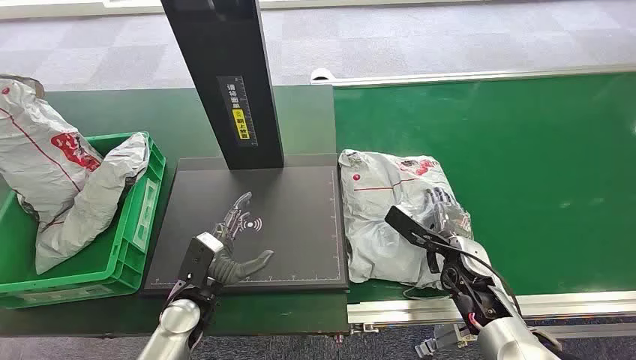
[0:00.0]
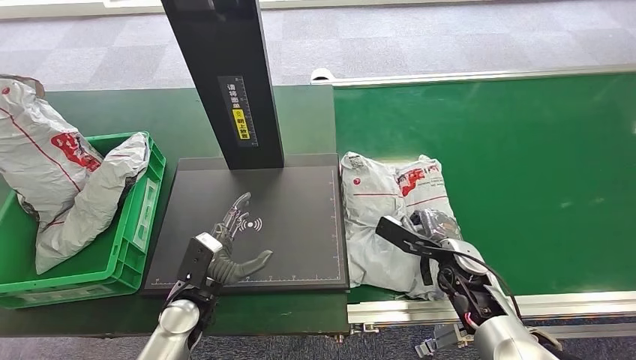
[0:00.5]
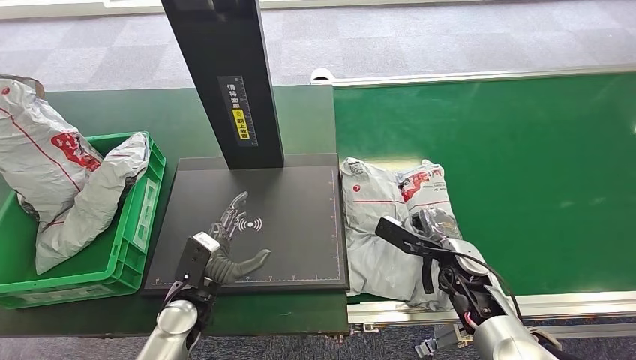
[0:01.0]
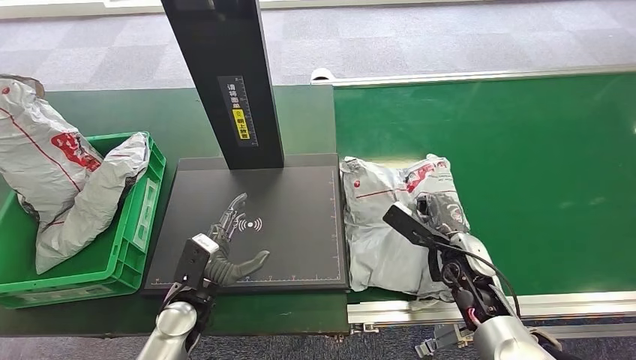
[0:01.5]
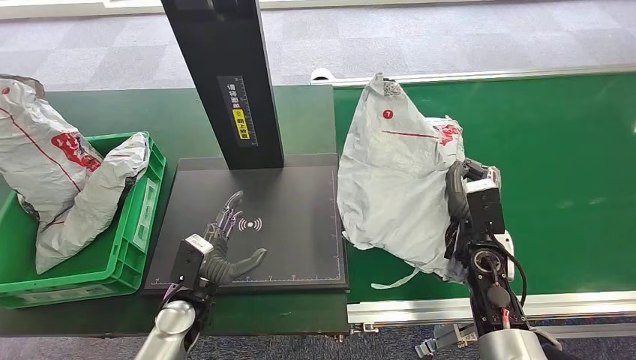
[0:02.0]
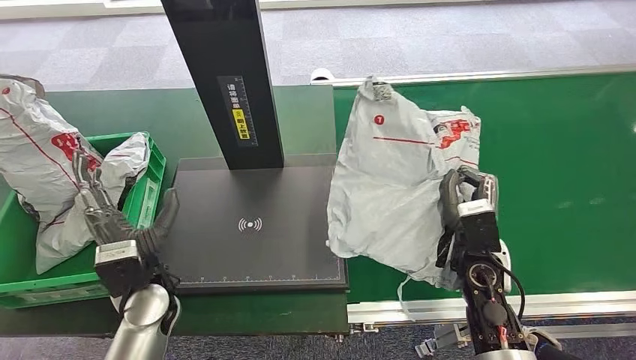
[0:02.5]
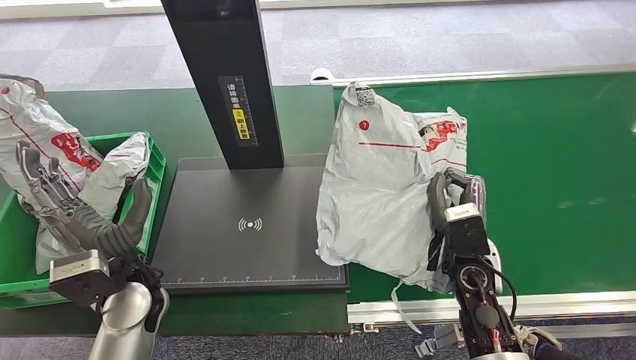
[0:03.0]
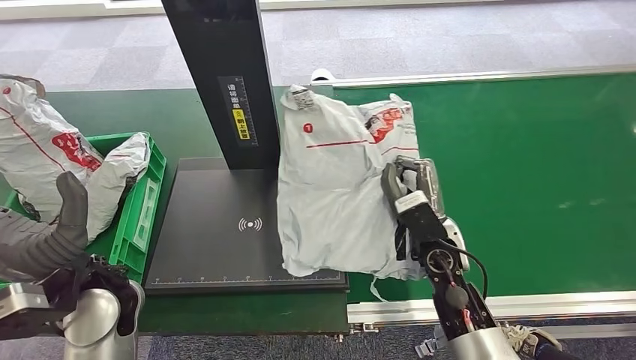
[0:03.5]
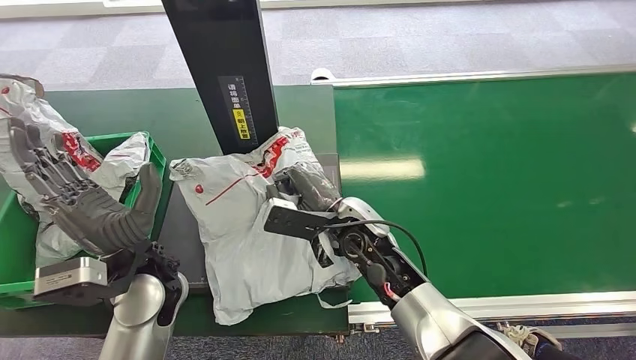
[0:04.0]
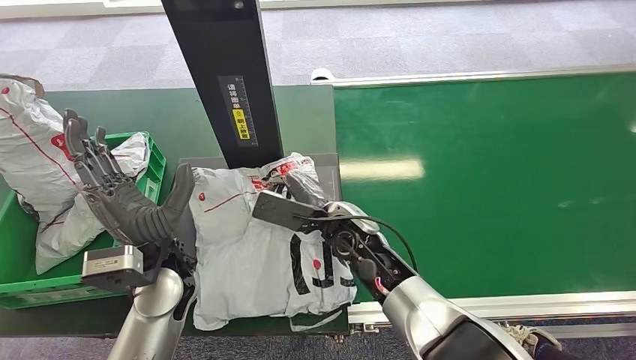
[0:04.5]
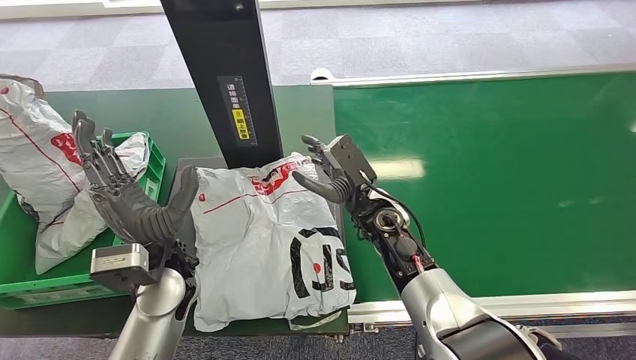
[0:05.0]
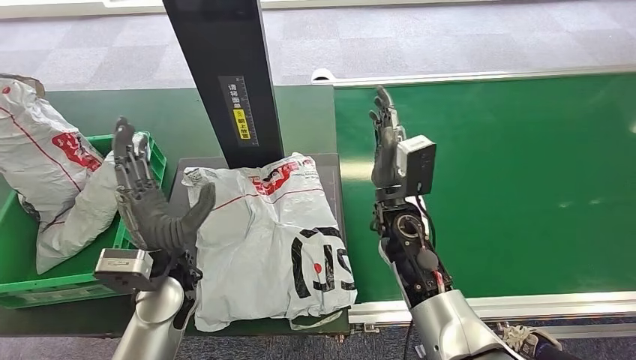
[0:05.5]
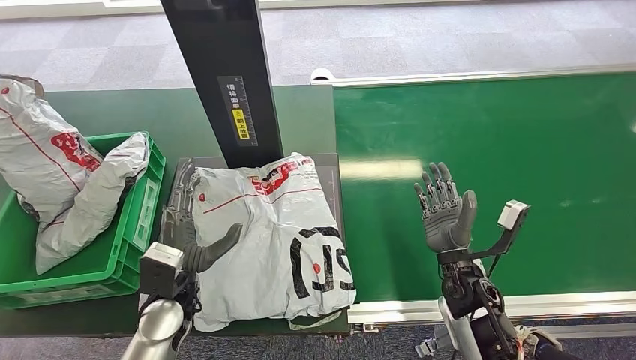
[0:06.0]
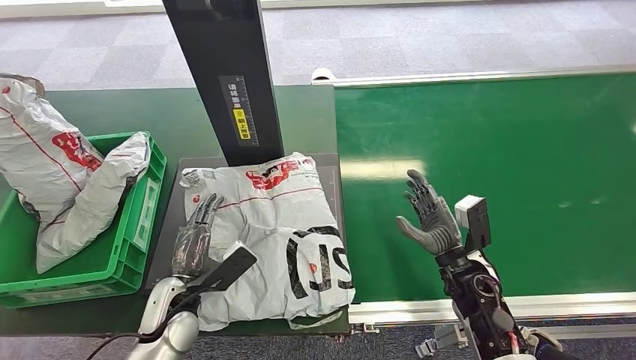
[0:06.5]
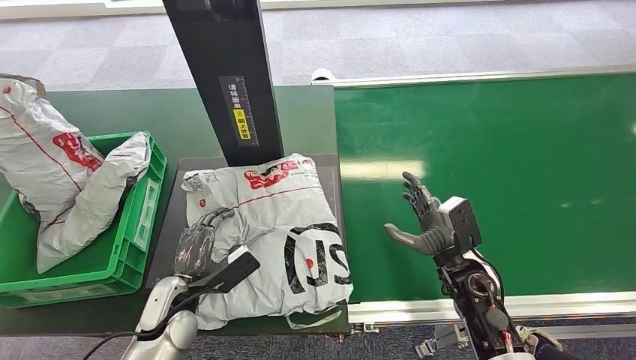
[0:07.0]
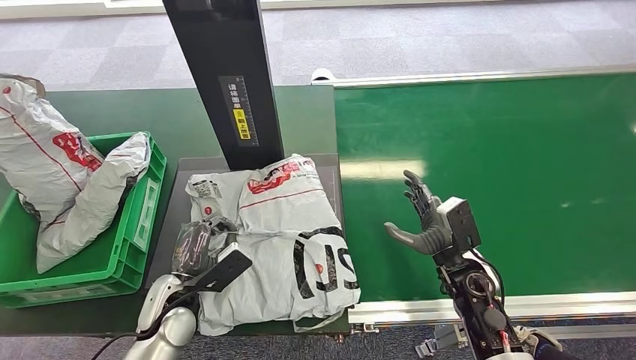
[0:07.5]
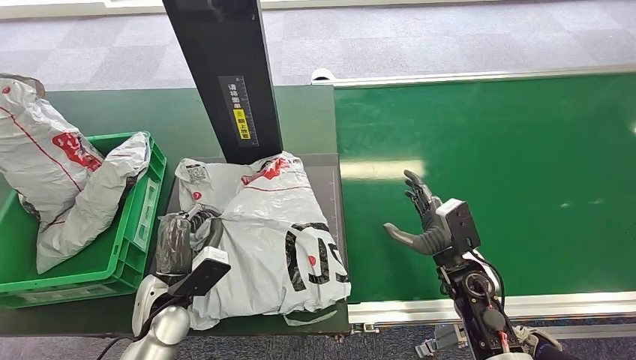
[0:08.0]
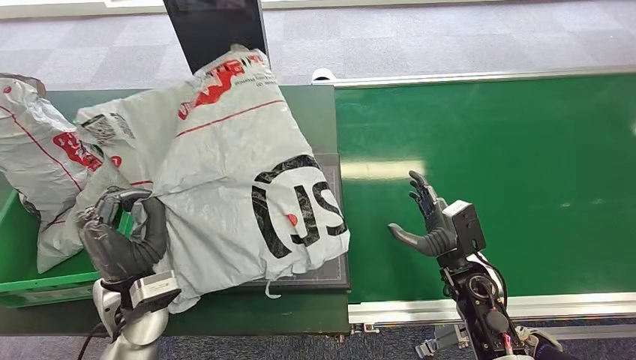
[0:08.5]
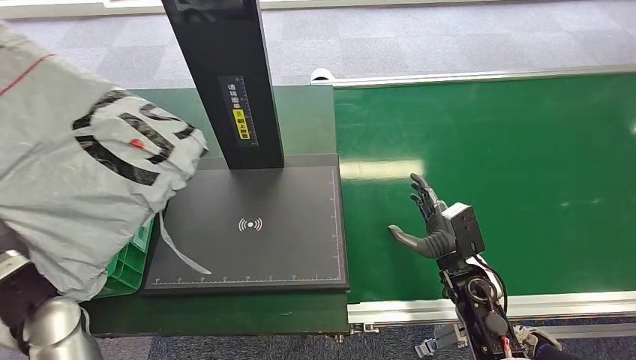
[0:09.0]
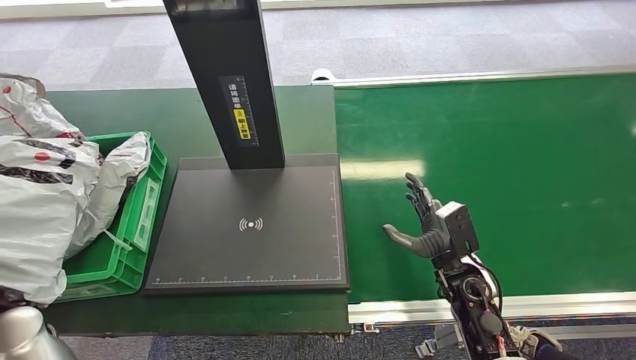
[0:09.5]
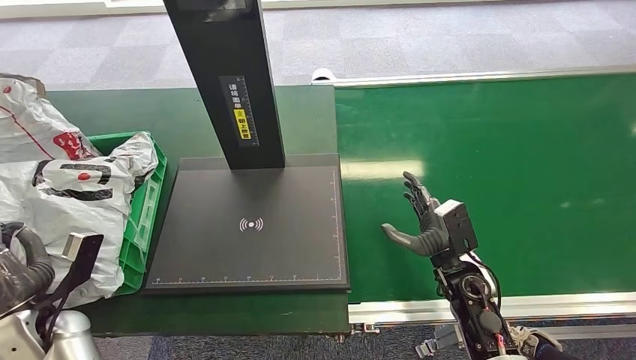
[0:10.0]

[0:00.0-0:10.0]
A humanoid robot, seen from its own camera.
Step, 0:00.0 to 0:01.5: Pick up the package from the conveyor belt.
Step, 0:02.0 to 0:04.5: Place the package onto the inbound machine.
Step, 0:05.0 to 0:08.0: Pick up the package from the inbound machine.
Step, 0:09.0 to 0:10.0: Place the package into the parcel locker.

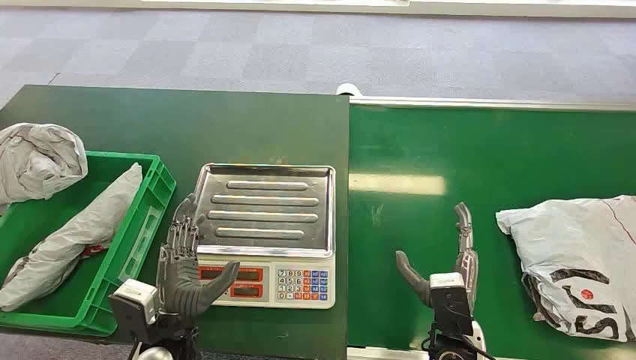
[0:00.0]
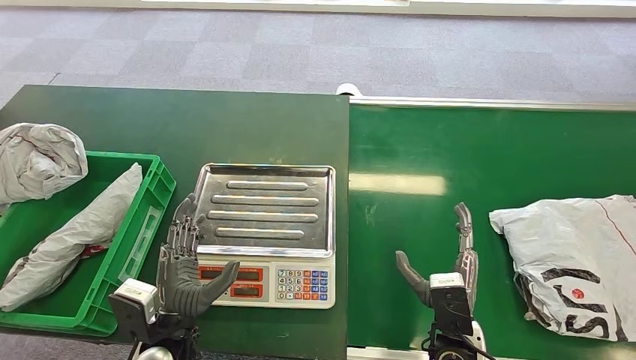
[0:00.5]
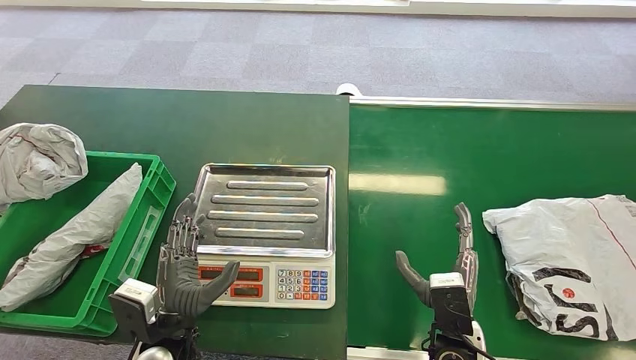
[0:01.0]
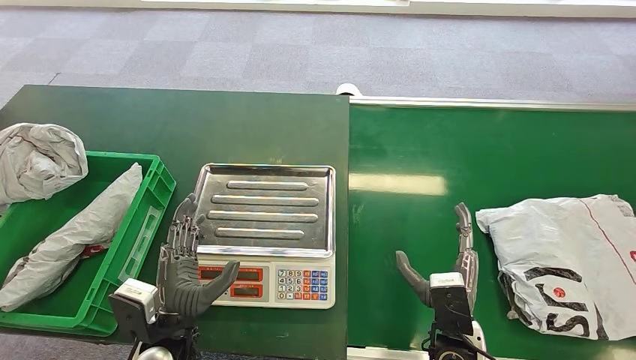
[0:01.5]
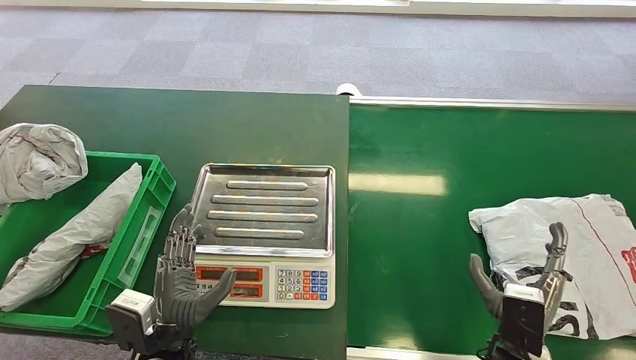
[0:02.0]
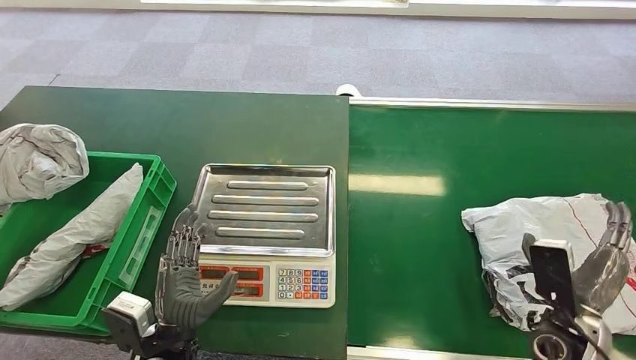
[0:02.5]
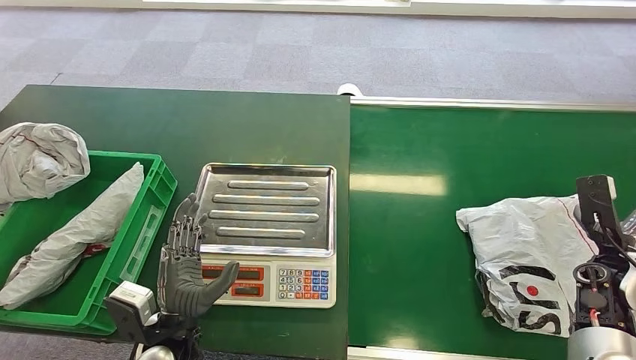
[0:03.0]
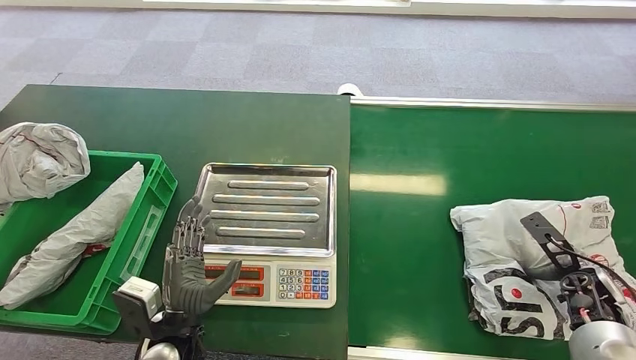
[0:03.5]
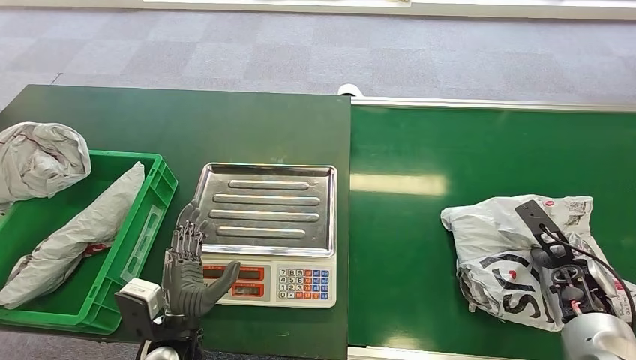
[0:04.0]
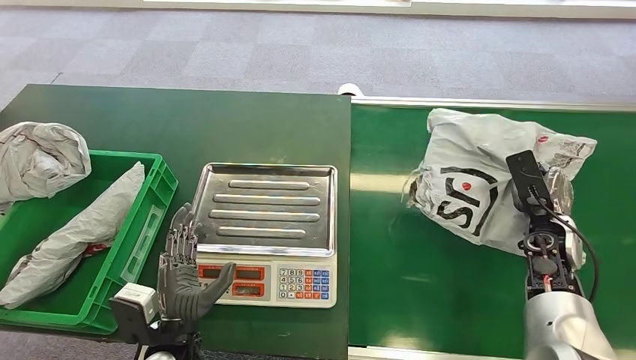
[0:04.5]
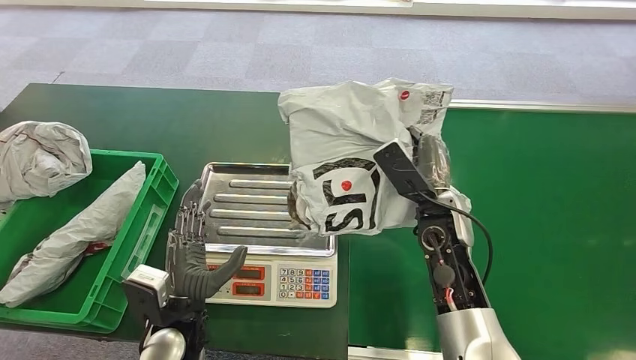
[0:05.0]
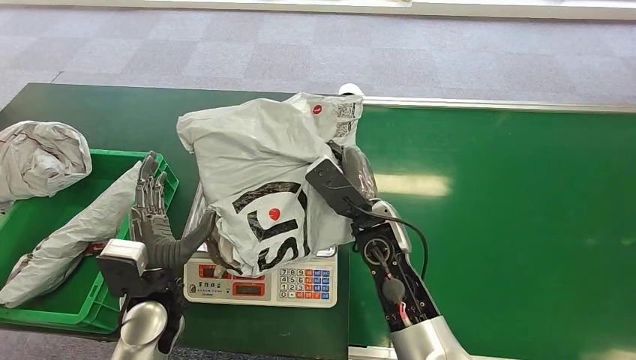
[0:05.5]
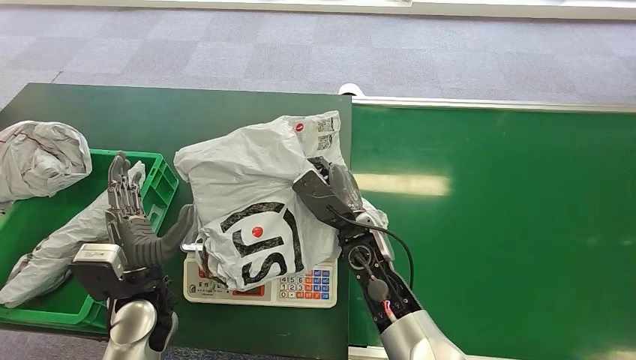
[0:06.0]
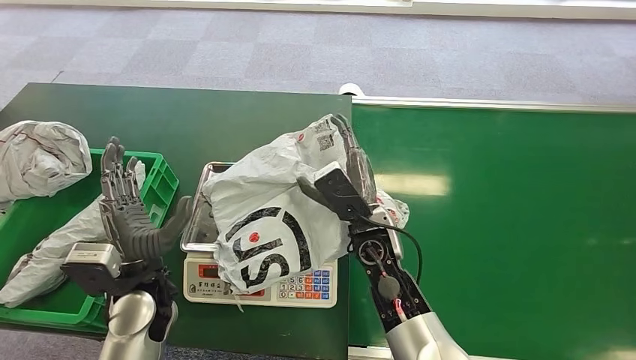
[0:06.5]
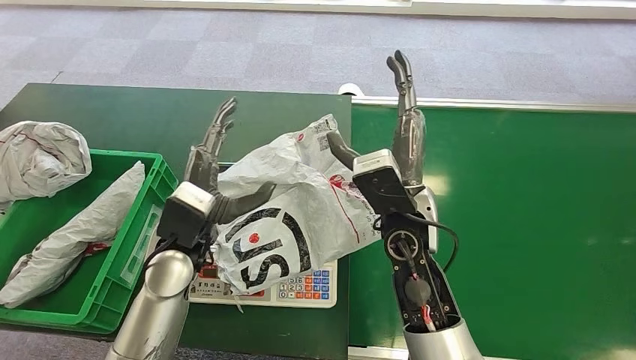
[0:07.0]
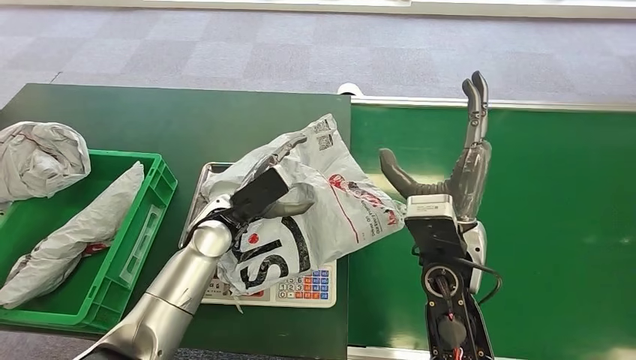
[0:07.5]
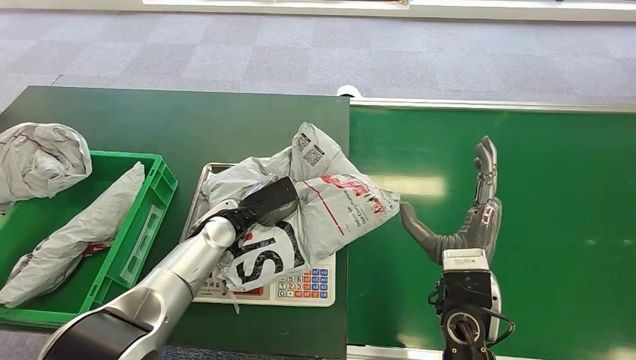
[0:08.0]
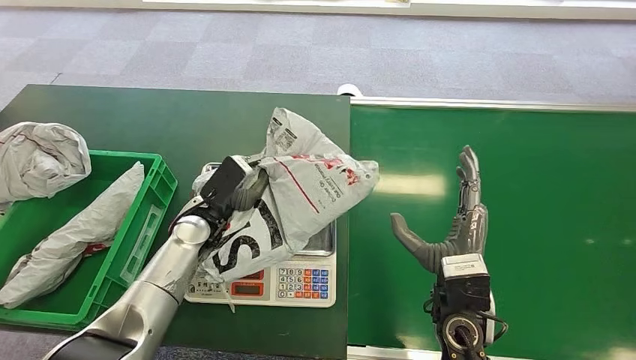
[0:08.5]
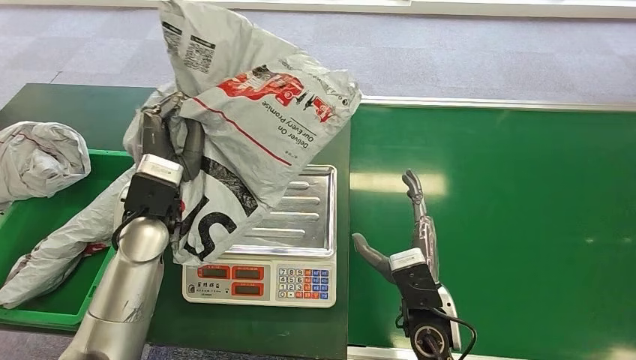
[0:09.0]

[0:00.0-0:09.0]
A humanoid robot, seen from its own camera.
Step, 0:00.0 to 0:04.5: Pick up the package from the conveyor belt.
Step, 0:05.0 to 0:07.5: Place the package onto the inbound machine.

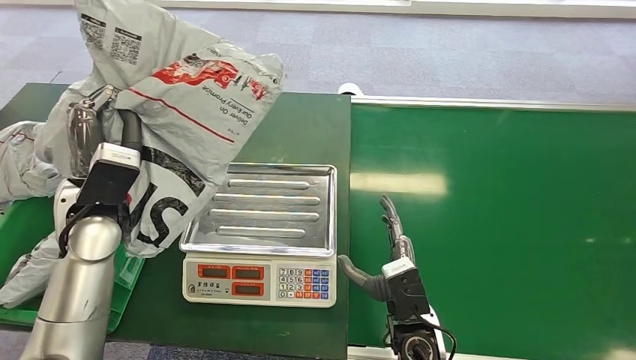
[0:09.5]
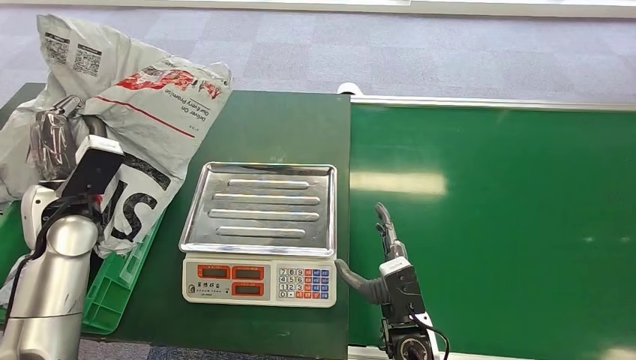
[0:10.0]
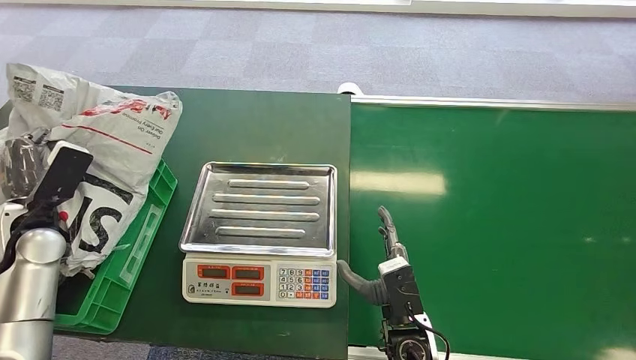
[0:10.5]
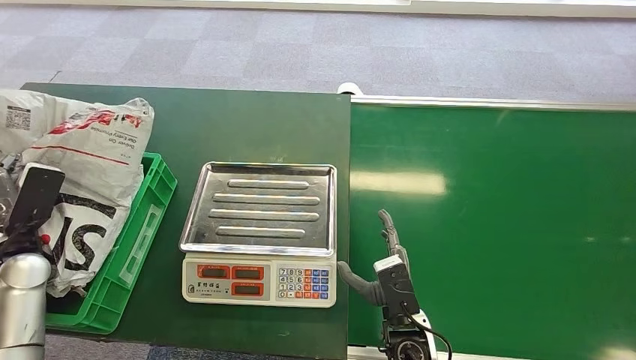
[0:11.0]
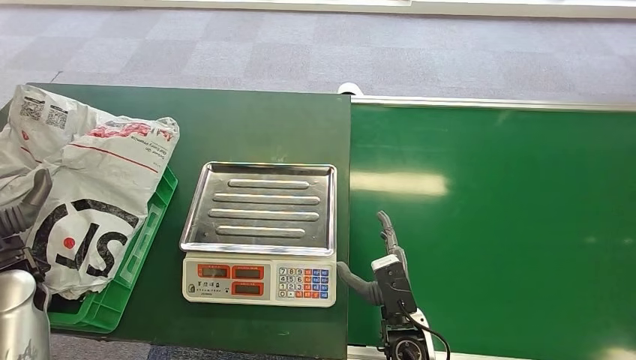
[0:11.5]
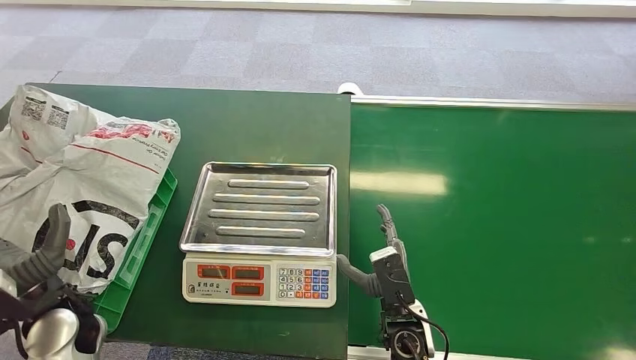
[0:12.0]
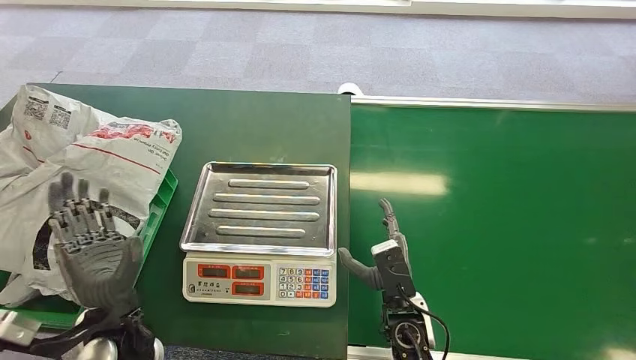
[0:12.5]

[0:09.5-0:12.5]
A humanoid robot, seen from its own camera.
Step, 0:10.0 to 0:12.5: Place the package into the parcel locker.
0:11.0 to 0:12.5: The left hand heads to the right and backward, covering roughly 25 cm.
